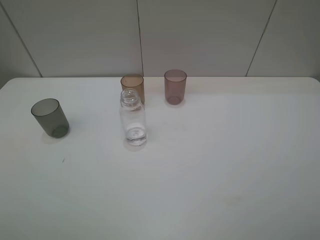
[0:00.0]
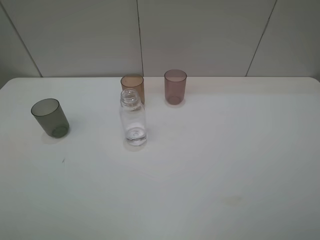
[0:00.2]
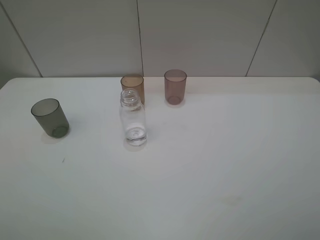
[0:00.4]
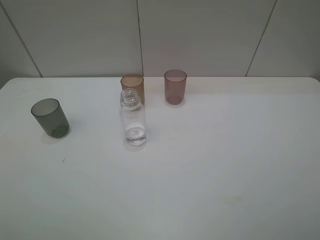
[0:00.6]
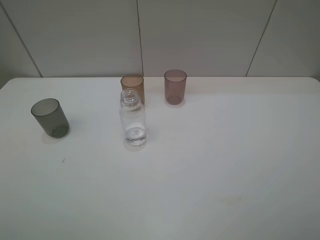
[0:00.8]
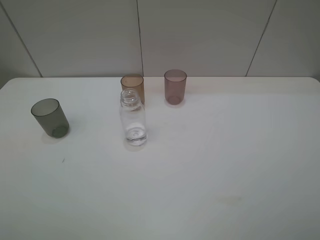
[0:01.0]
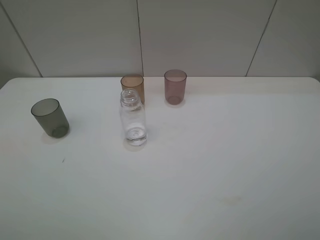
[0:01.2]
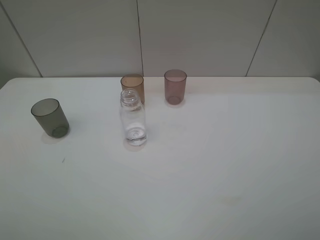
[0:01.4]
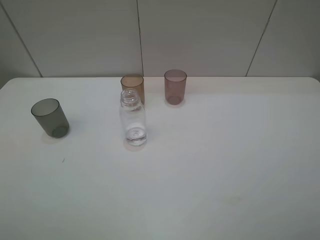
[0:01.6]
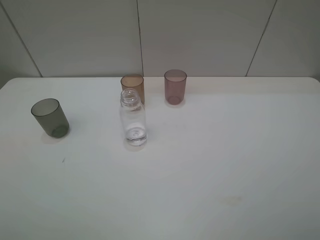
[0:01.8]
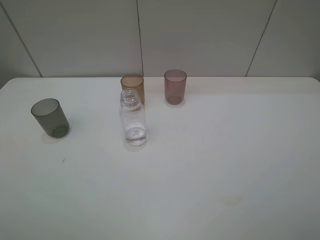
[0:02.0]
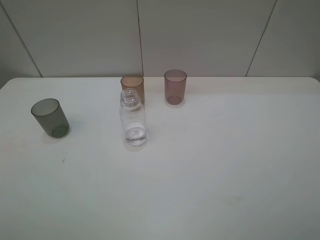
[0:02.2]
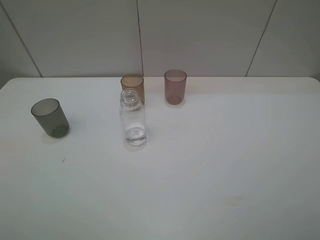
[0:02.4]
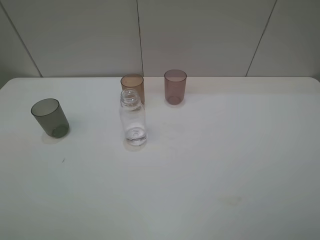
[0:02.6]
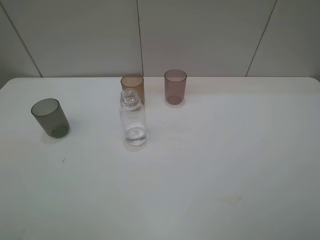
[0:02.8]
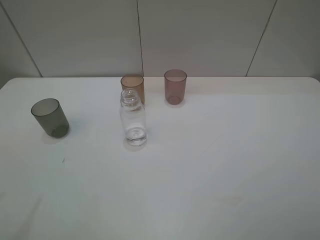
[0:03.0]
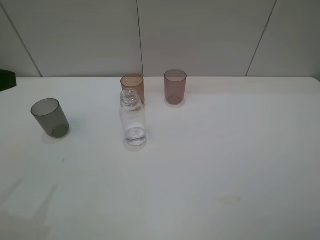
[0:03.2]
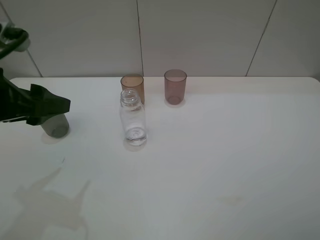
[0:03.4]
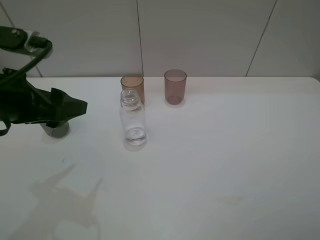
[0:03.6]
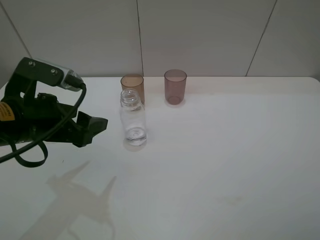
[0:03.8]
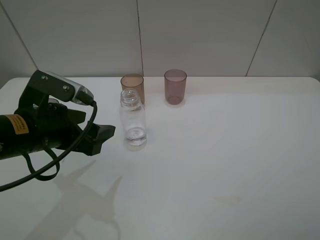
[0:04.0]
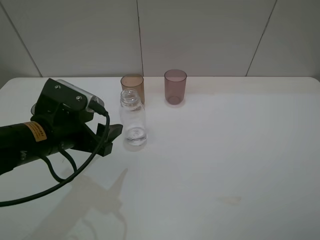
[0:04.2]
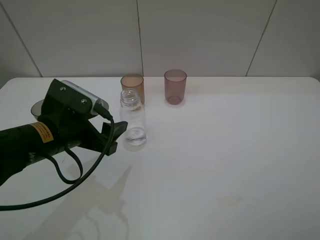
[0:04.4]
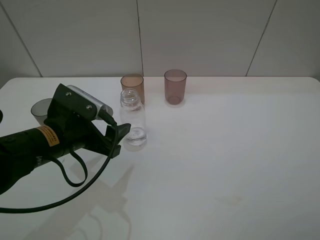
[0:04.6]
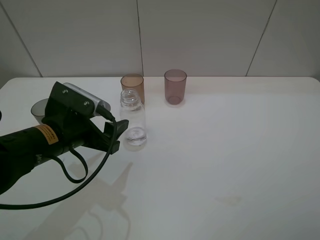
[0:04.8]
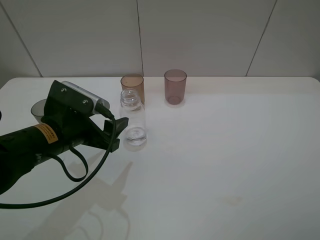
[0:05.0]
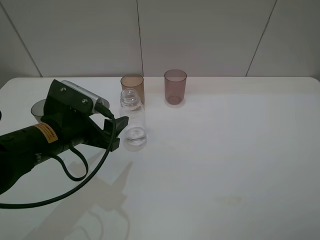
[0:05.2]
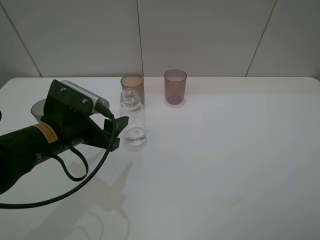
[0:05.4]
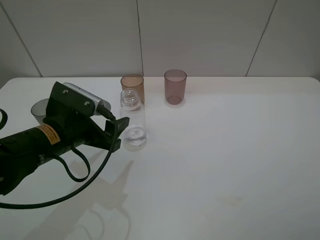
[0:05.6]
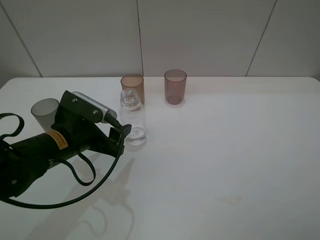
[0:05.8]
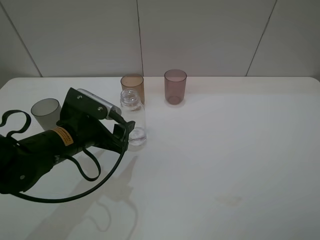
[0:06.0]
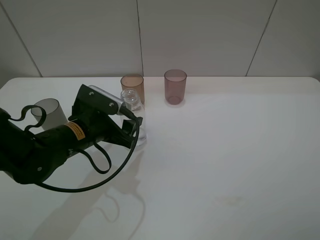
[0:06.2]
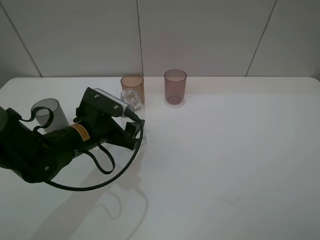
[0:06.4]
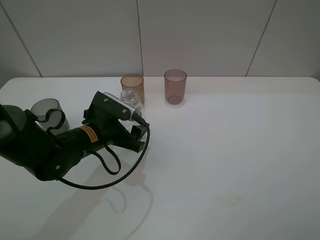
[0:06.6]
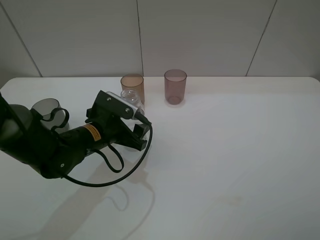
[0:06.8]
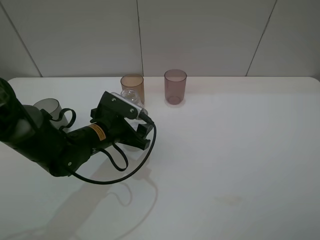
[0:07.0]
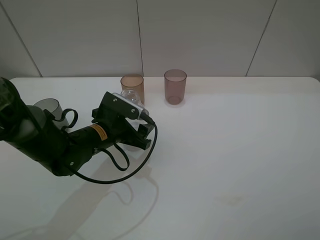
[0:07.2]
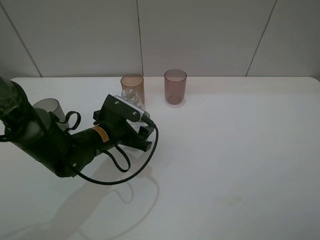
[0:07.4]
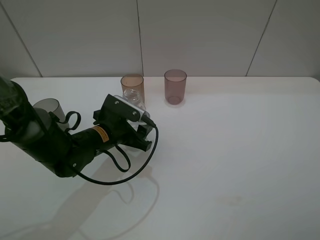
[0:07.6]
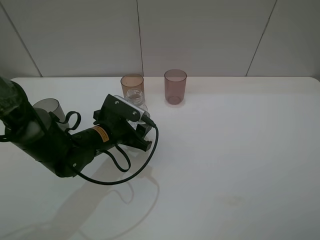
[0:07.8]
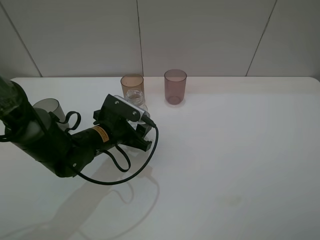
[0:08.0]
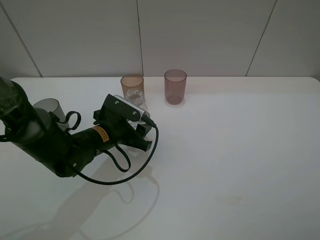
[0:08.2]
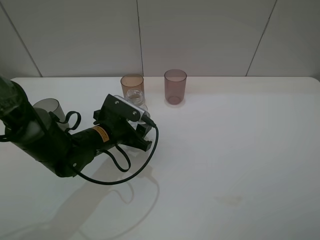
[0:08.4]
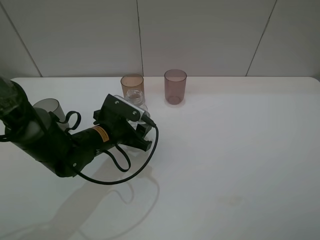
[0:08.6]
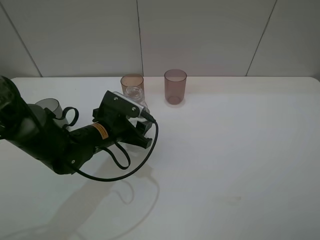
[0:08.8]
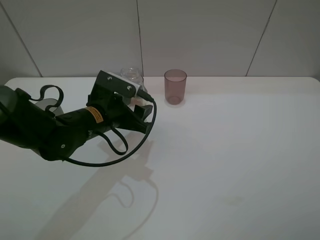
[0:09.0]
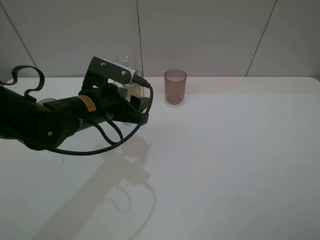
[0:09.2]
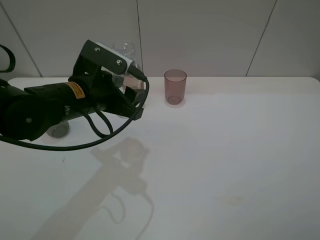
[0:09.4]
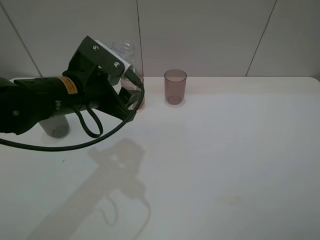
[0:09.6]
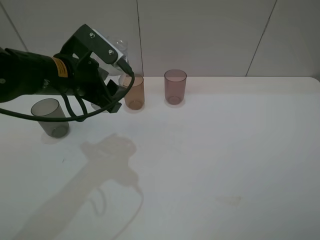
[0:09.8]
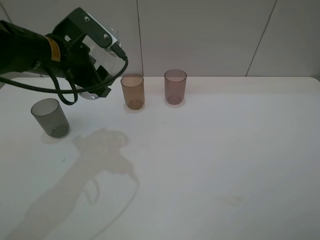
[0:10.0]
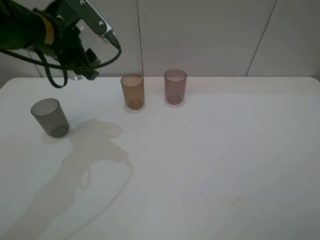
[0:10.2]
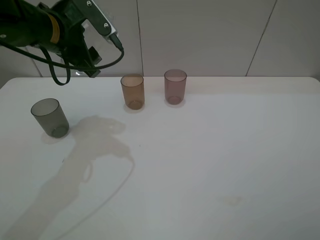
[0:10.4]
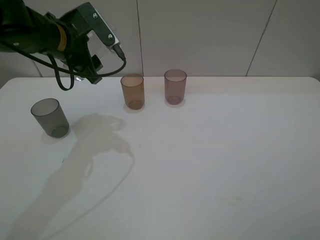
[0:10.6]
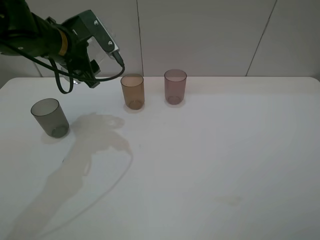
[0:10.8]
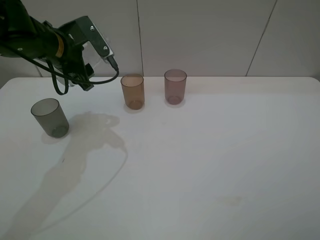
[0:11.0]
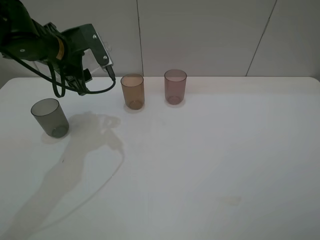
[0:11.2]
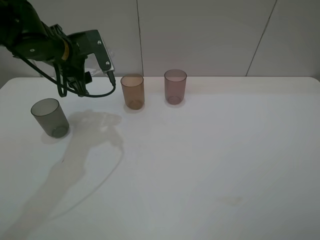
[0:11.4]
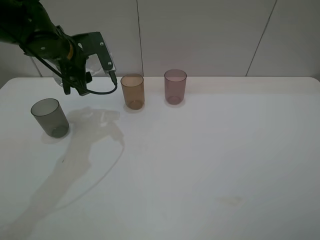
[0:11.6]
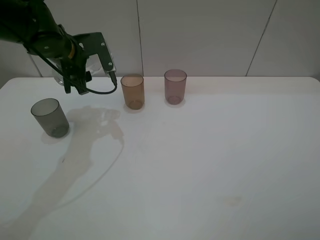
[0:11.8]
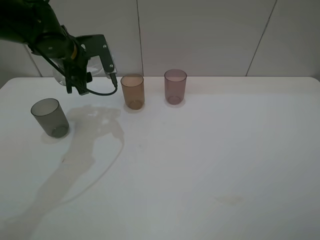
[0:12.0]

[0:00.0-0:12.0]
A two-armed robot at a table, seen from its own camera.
Task of the whole recording: pick up the bottle filled with water and pour water into the middle cup of the three cups.
Step, 0:00.0 to 0:08.0: Grasp the transparent bottle with the left gripper.
0:00.0 to 0:01.6: The two grippers keep their place.
0:03.0 to 0:04.4: The left gripper is displaced downward, to the right and forward by approximately 20 cm.
0:04.4 to 0:06.0: The grippers make only small movements.
0:06.0 to 0:07.6: The left gripper travels downward by approximately 5 cm, and closes up.
0:07.6 to 0:09.0: The left gripper travels upward by some 5 cm.
0:09.0 to 0:10.4: The left gripper shifts some 15 cm upward, forward and to the left.
0:10.4 to 0:12.0: The left gripper heads downward and forward, covering roughly 10 cm.

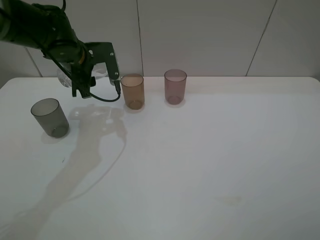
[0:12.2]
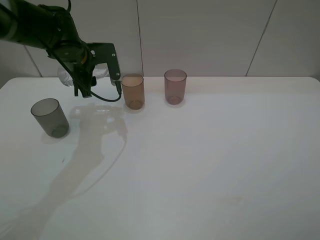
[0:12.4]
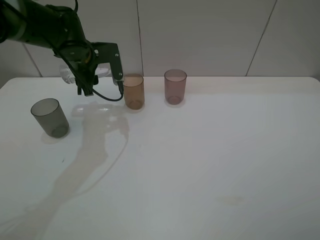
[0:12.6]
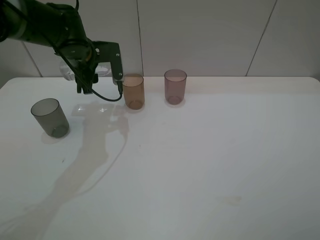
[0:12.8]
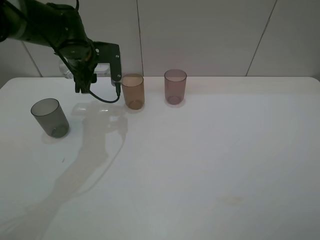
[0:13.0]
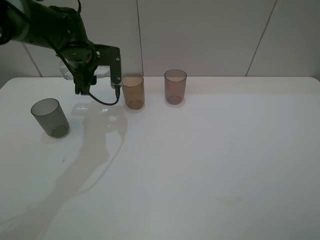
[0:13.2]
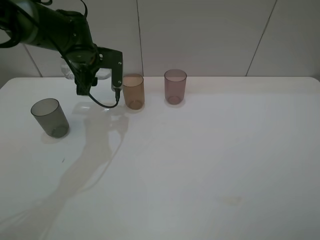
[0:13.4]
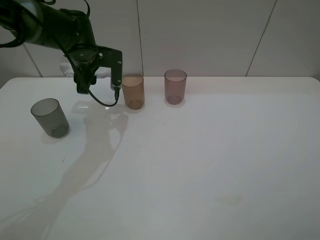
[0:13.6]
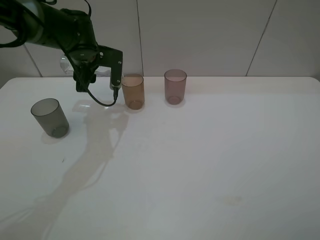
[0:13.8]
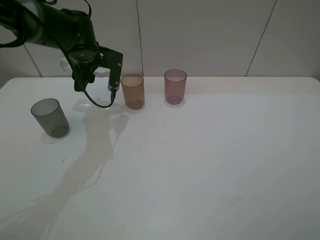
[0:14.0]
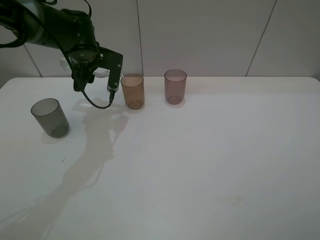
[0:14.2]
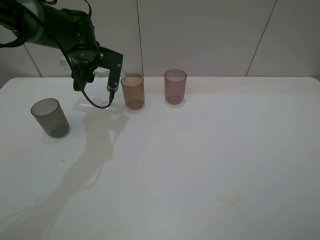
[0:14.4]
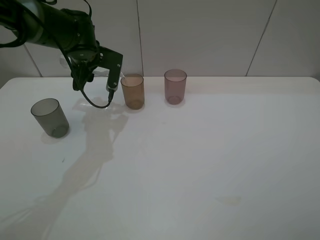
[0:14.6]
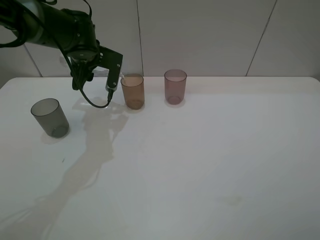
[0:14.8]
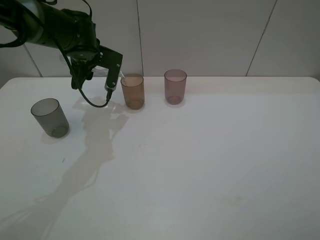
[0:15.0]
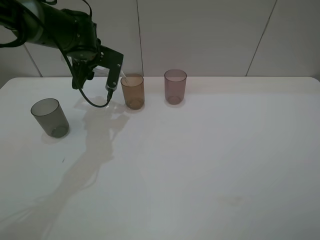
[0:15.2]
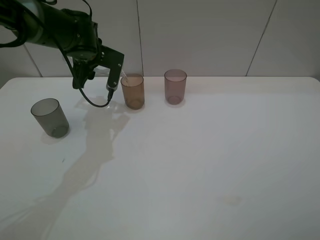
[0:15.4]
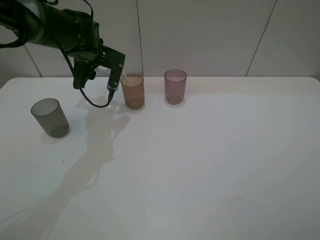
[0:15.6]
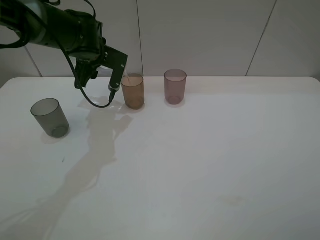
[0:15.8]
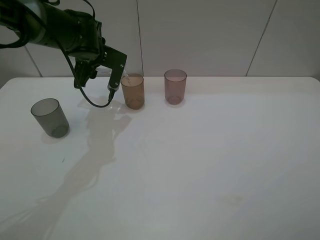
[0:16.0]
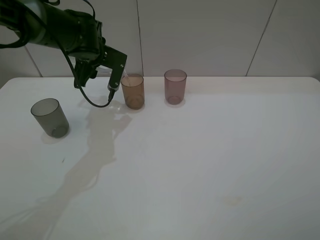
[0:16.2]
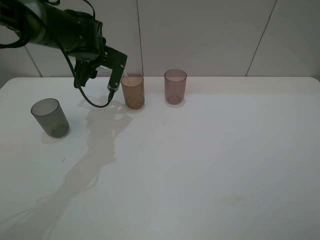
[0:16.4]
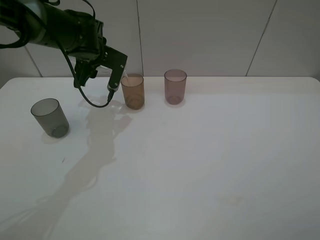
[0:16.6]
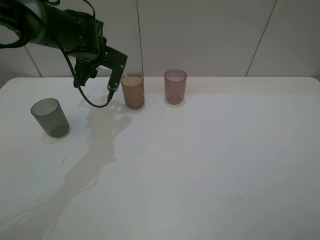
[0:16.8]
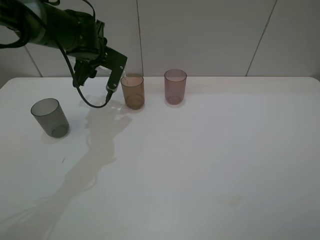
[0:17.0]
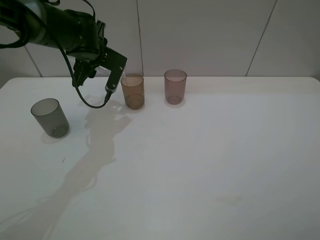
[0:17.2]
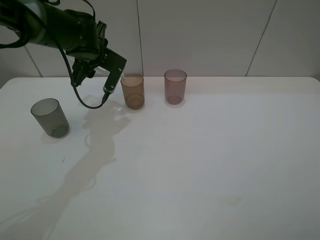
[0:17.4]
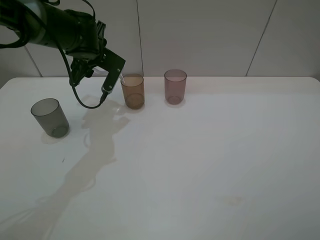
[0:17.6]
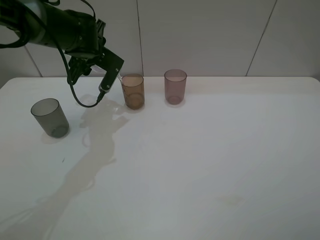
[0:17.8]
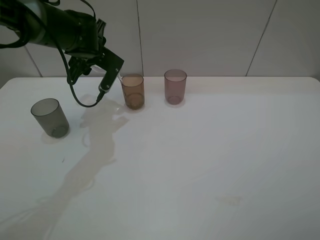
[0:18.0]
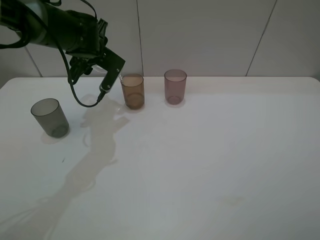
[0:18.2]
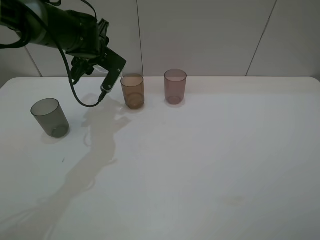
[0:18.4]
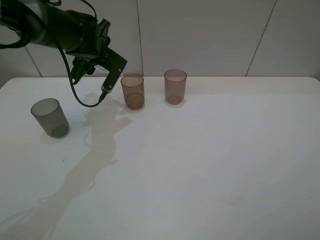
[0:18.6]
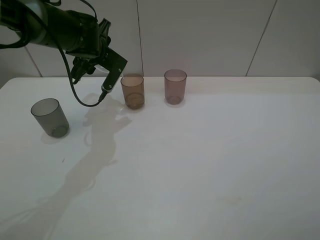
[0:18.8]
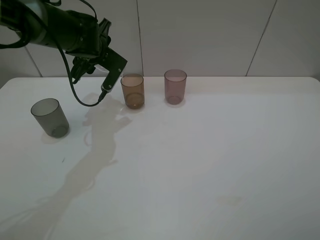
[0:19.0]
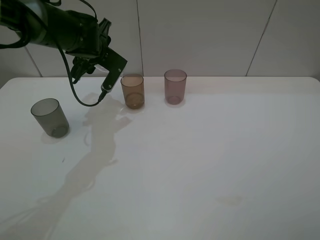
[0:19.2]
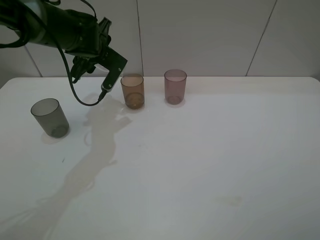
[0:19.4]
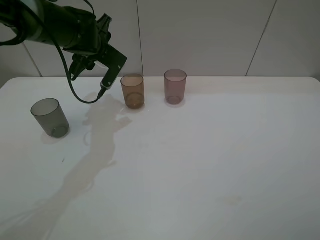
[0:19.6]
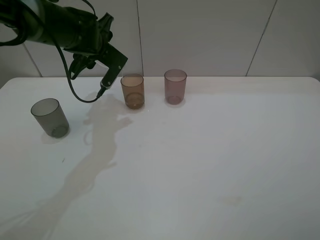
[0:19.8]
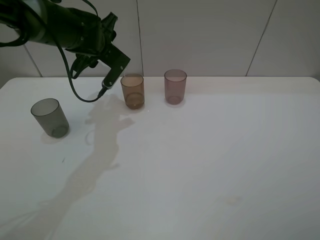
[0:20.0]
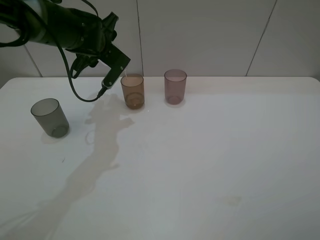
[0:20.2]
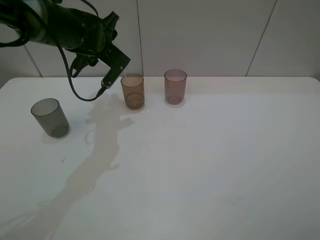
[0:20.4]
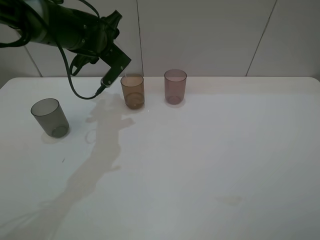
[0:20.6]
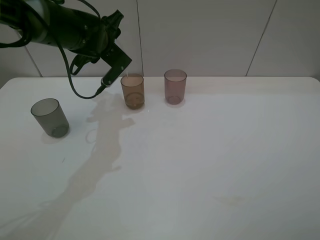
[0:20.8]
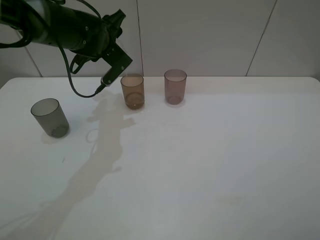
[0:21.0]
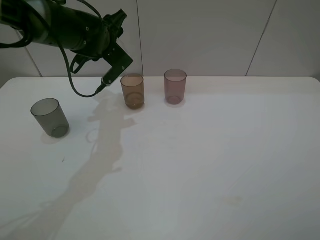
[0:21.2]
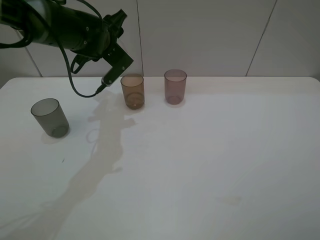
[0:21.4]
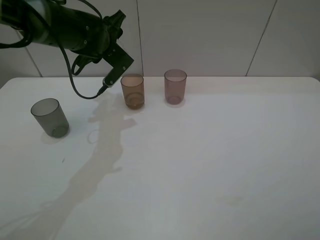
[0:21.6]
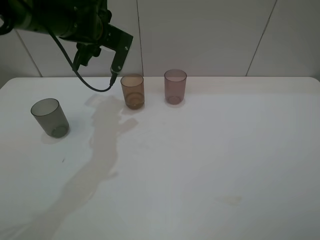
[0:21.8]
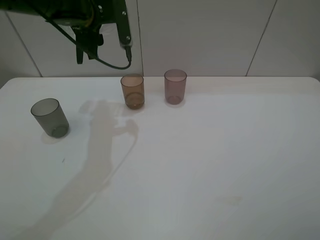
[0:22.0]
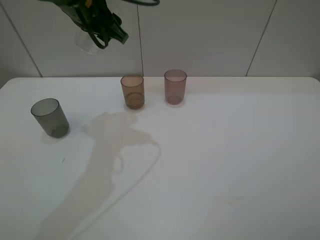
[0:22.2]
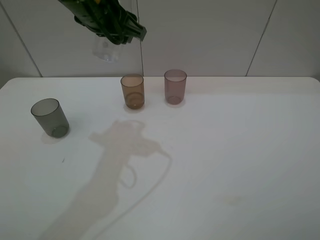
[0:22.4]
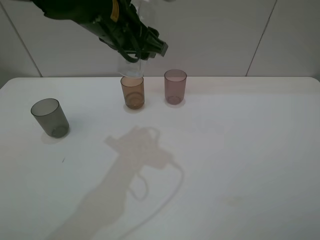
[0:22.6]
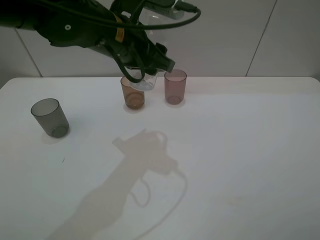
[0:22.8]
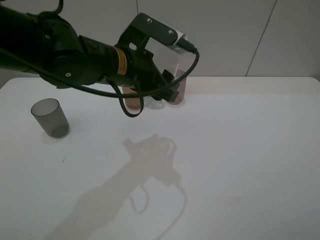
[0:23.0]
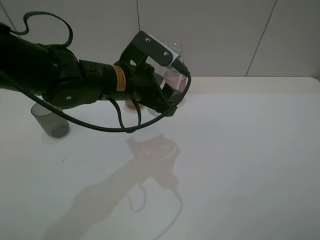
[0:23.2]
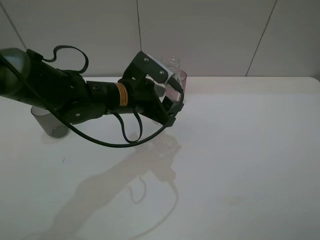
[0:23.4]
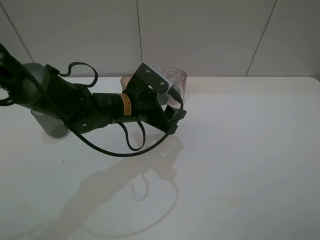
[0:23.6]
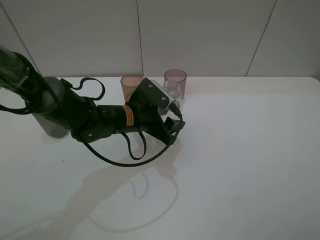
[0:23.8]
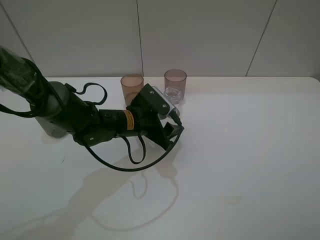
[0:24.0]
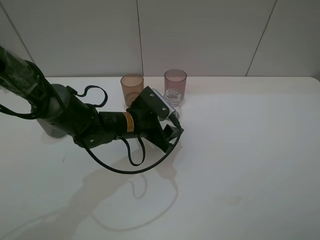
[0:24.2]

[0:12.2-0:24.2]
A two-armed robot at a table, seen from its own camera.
Task of the whole recording: pick up the bottle filled with water and pour water into the middle cup of the three cups.
0:13.8 to 0:16.6: The grippers stay close to where they were, moving slightly.
0:16.6 to 0:19.8: The grippers move only a little.
0:19.8 to 0:21.2: The grippers stay close to where they were, moving slightly.
0:21.2 to 0:22.6: The left gripper goes about 15 cm backward, upward and to the right.
0:22.6 to 0:24.2: The left gripper travels downward by roughly 20 cm.
